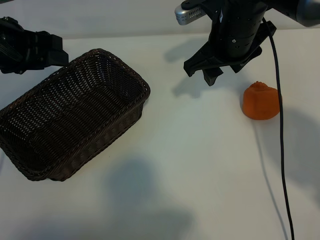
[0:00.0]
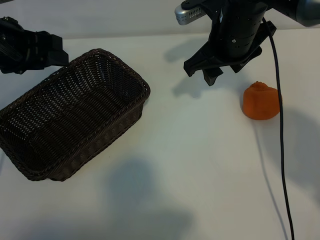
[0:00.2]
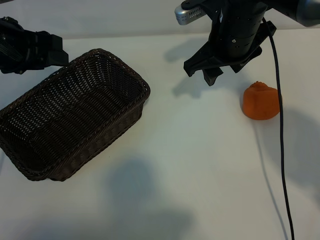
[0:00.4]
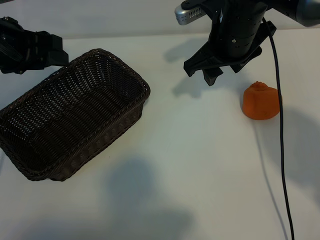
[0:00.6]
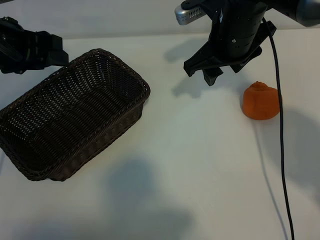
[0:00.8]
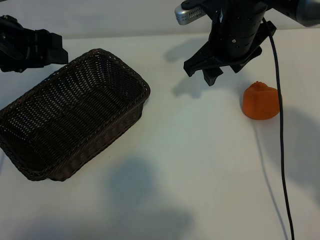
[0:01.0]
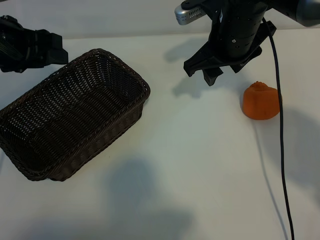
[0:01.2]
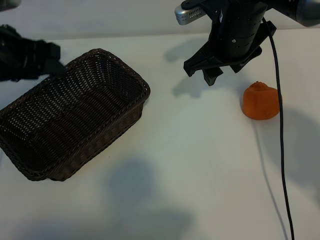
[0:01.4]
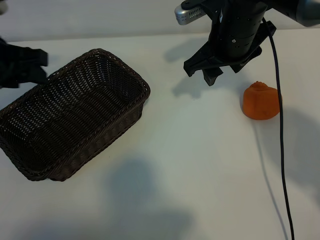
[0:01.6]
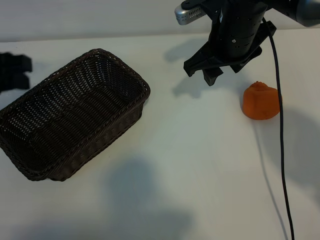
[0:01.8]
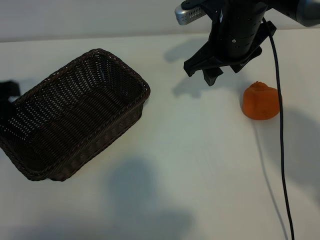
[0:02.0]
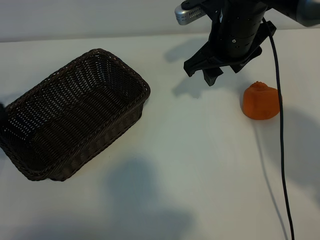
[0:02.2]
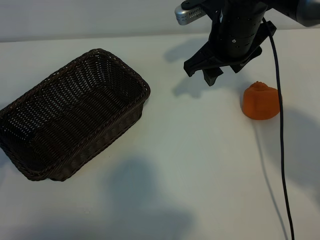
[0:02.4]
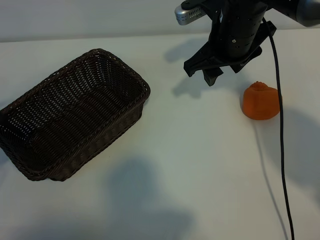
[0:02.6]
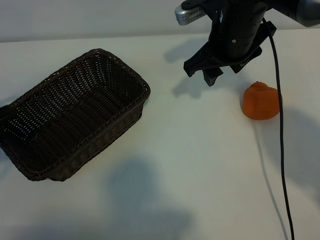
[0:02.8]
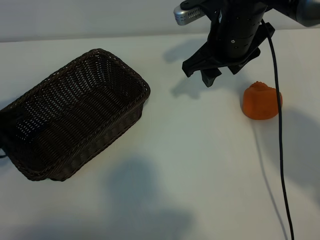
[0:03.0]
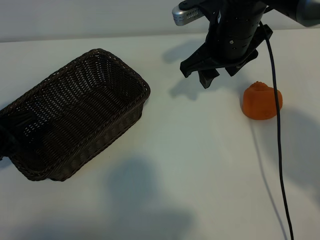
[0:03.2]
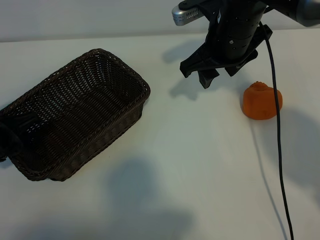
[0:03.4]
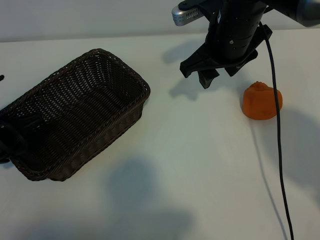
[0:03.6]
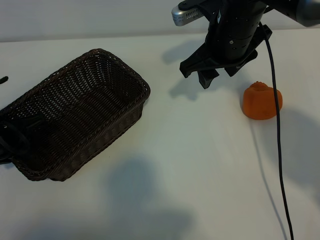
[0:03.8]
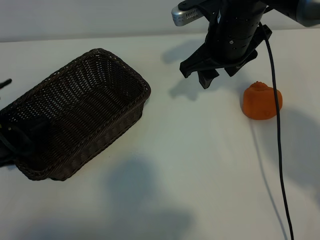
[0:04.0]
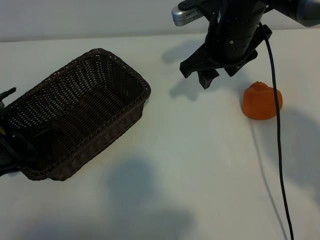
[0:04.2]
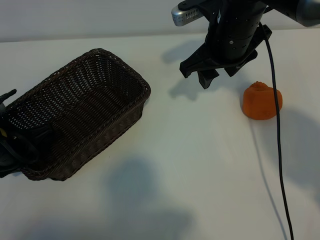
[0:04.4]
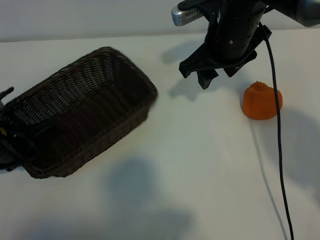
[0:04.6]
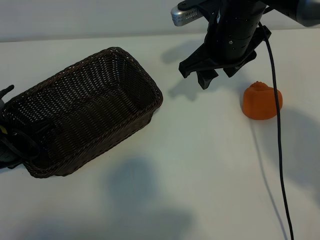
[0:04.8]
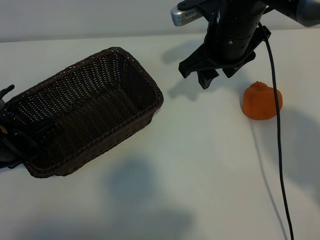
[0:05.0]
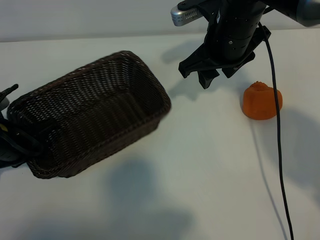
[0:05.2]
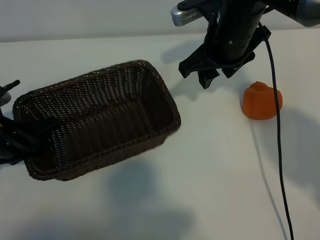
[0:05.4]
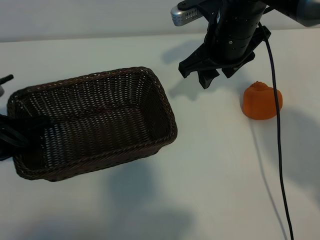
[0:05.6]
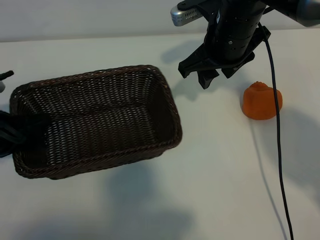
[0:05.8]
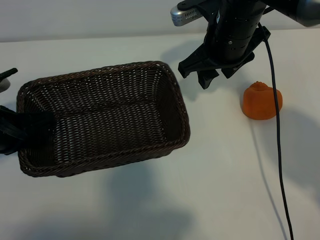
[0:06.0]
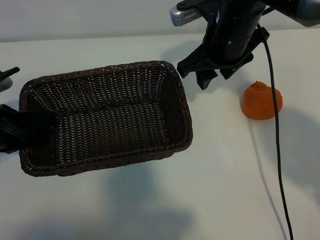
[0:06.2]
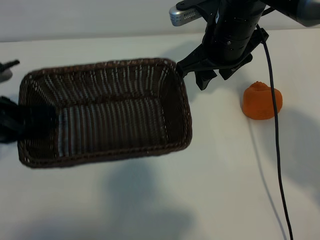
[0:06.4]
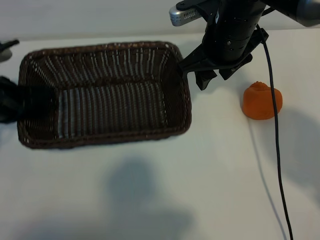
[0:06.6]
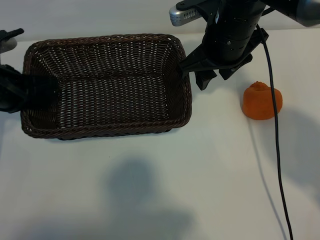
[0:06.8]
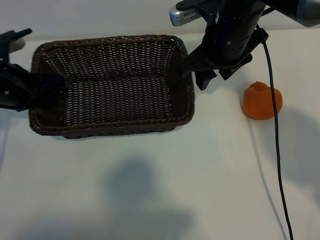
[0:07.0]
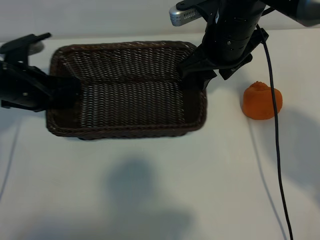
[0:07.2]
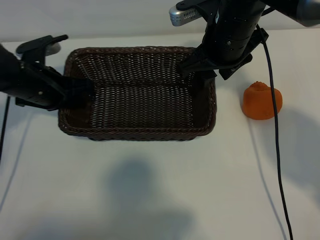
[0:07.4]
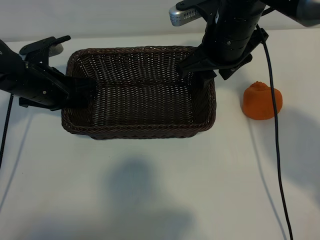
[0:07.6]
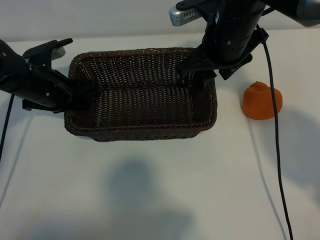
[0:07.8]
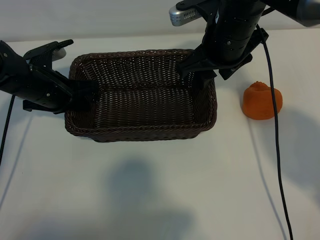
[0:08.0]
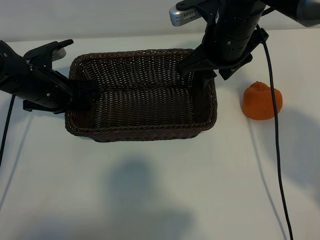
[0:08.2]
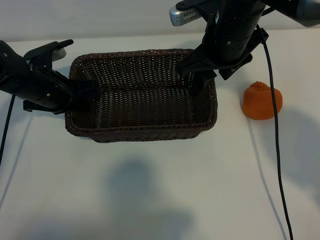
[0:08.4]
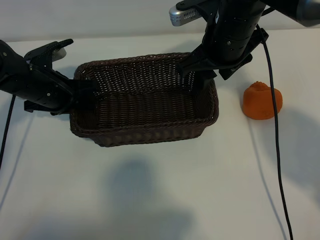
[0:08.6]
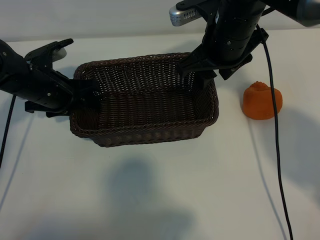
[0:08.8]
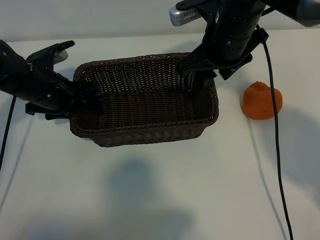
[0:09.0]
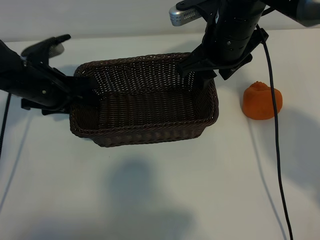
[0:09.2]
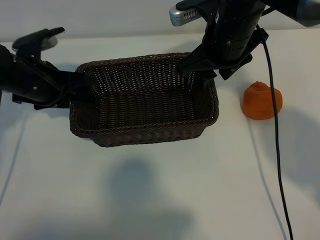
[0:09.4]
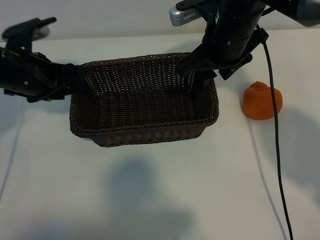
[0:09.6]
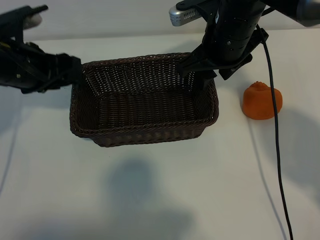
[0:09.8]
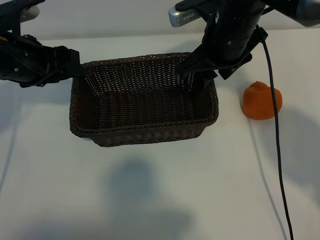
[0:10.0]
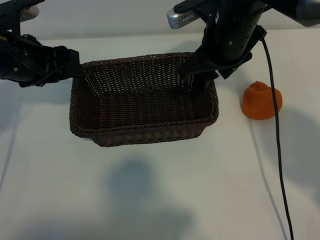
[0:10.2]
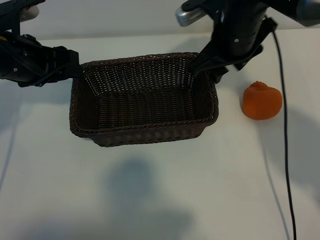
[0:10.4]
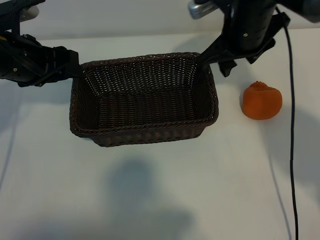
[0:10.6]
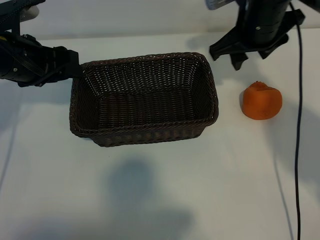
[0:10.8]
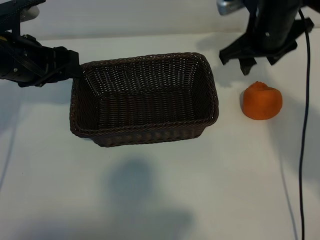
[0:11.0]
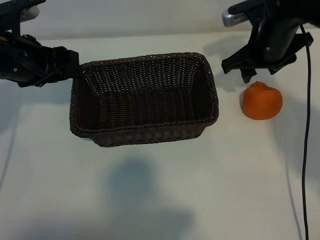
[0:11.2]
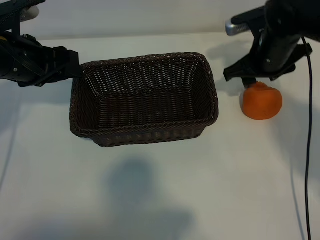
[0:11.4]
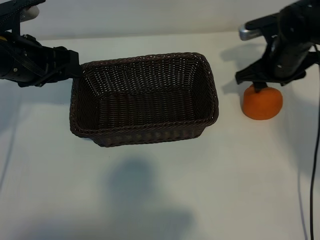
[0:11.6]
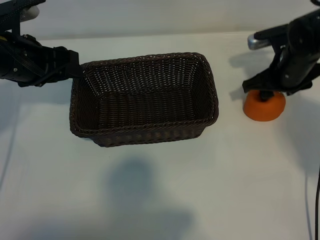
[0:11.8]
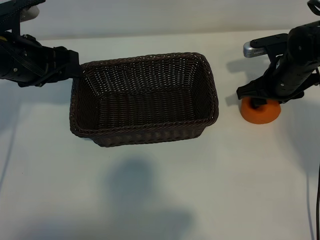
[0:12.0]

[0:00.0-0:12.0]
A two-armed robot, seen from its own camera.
Task of the whole recording: pick up the orange and put it into the basket.
Step, 0:01.0 to 0:04.6: Grasp the basket with left gripper.
Step, 0:04.8 to 0:08.4: Place the basket in the center of view with left gripper.

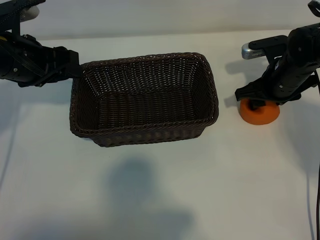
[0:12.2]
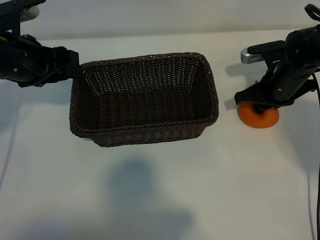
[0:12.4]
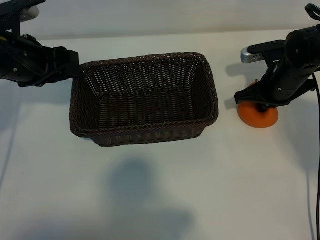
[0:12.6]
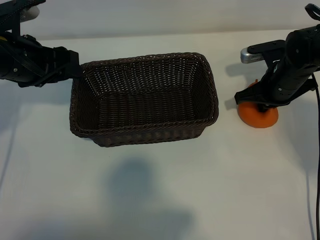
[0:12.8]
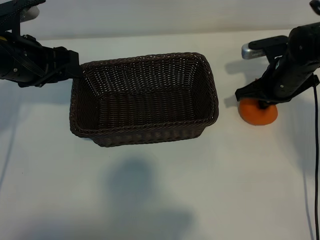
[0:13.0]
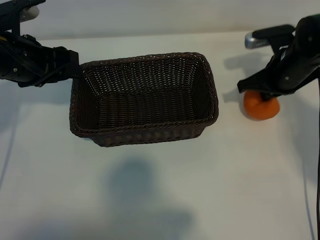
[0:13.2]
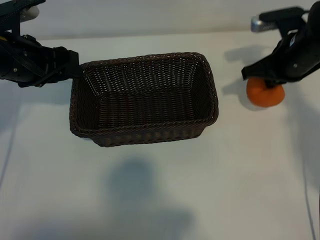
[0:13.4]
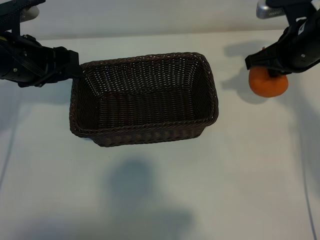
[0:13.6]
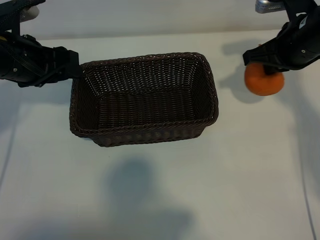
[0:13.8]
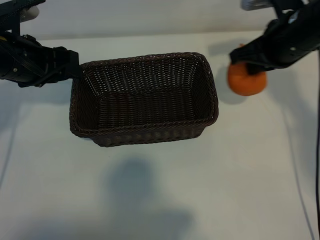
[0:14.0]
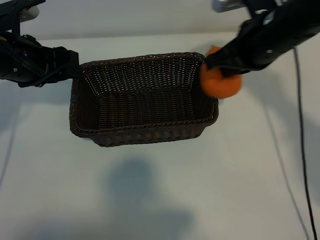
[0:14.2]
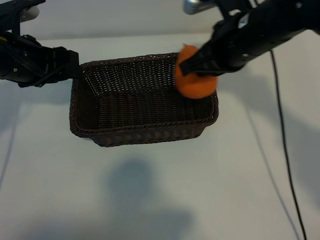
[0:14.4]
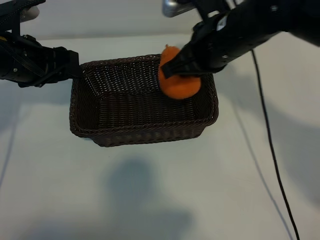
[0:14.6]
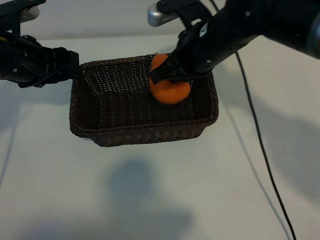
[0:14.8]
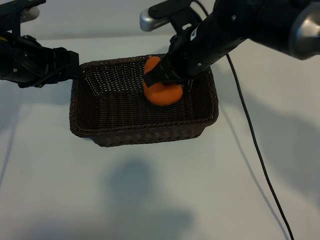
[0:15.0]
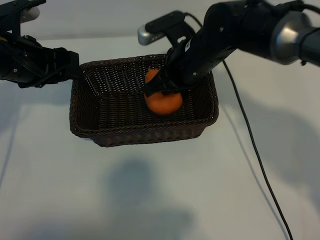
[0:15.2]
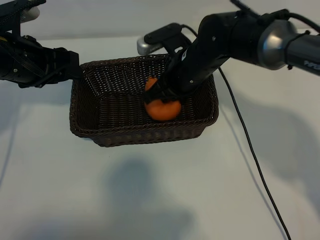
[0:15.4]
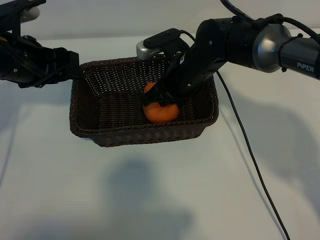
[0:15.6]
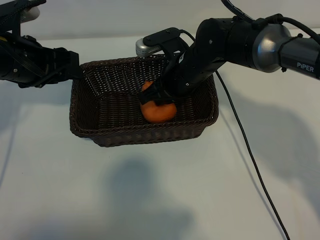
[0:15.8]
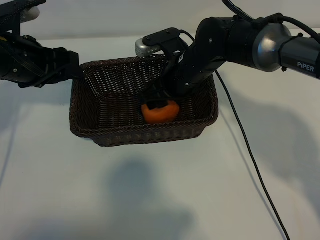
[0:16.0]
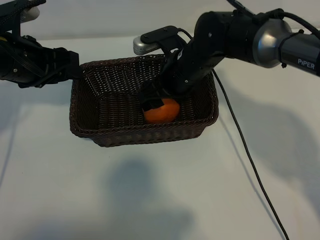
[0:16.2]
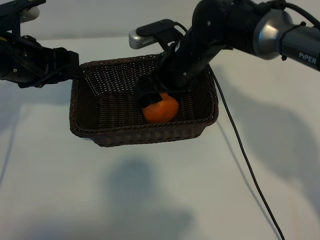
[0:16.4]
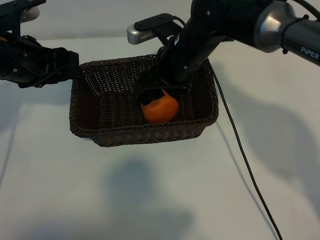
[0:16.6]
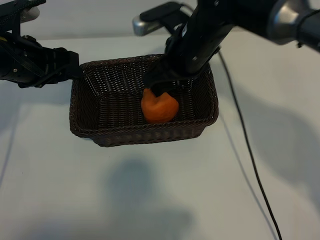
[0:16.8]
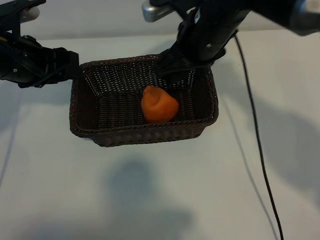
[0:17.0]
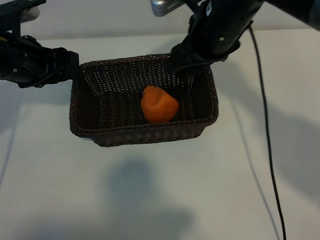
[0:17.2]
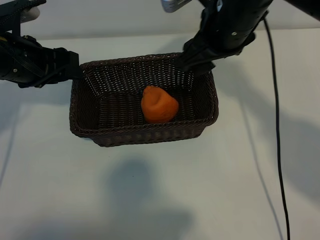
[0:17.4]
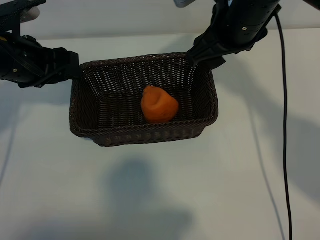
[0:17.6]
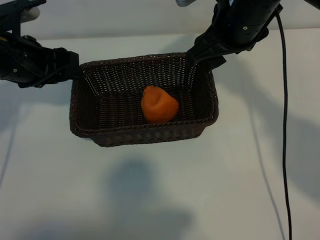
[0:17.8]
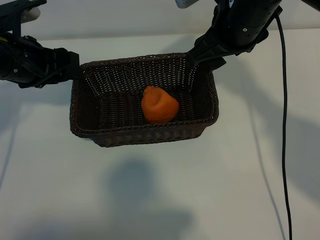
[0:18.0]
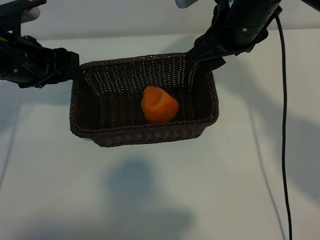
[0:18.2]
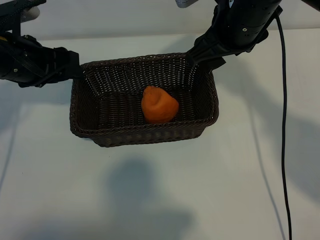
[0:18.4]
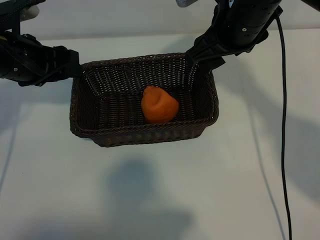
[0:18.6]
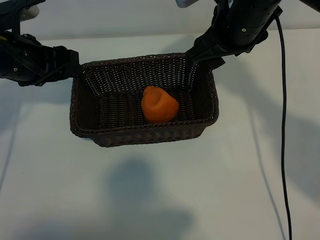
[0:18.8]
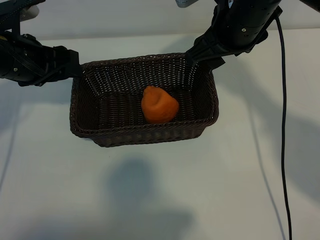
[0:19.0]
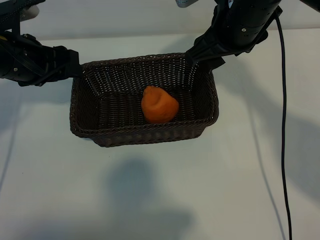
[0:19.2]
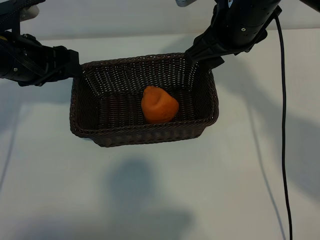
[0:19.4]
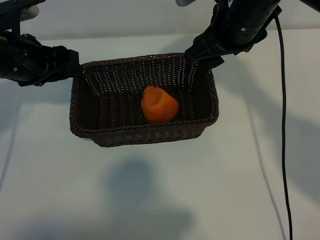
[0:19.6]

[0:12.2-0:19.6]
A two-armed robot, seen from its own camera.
Task of the whole recording: pick up the orange and put it into the basket.
Step, 0:12.8 to 0:16.0: Place the orange in the basket with right gripper.
